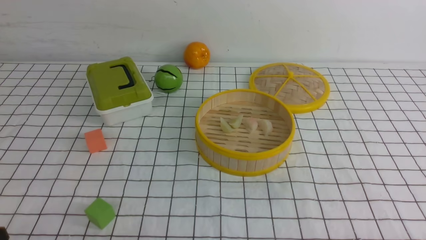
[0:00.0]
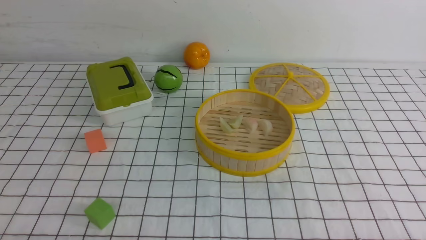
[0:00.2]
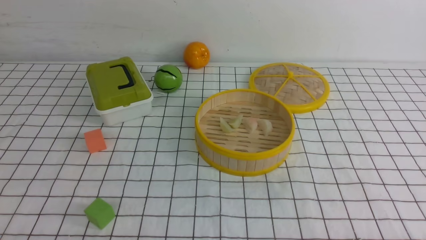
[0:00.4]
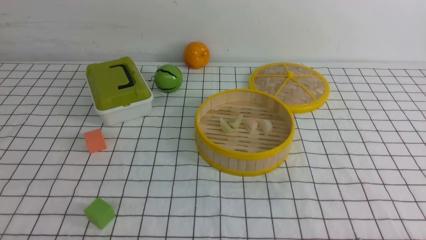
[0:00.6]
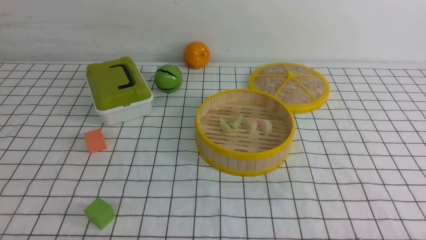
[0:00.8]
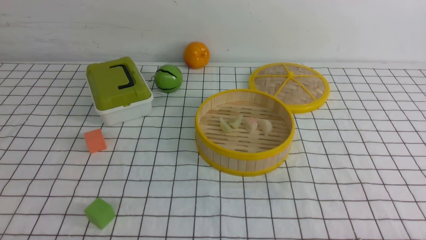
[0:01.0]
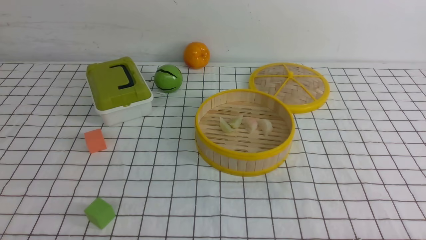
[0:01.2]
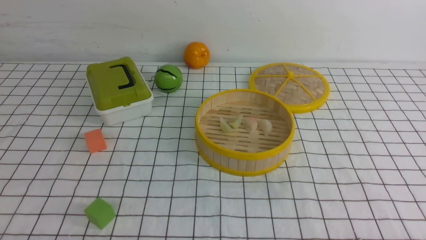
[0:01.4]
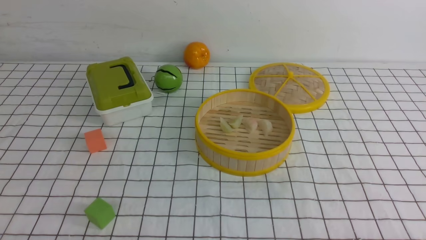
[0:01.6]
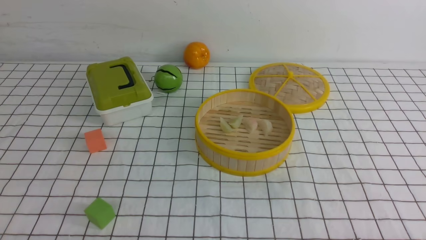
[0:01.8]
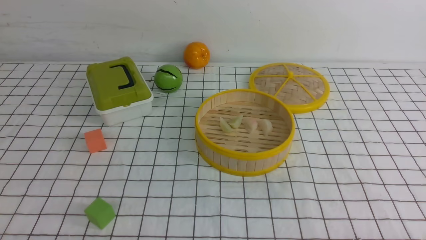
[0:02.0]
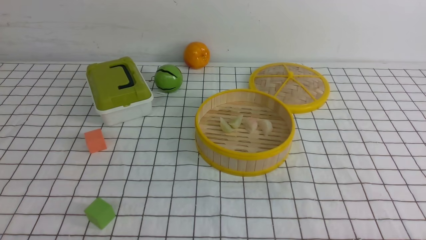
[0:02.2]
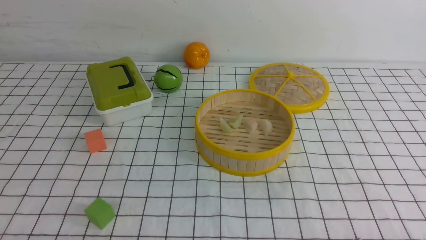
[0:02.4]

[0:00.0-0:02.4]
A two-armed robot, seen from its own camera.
Task of the whole recording: put the dumplings into the steamer on the table with the white tablecloth.
0:01.2 to 0:02.4: The two grippers keep their place.

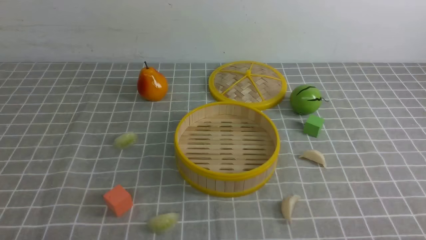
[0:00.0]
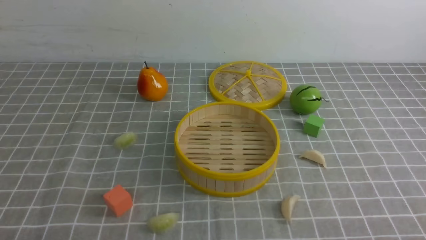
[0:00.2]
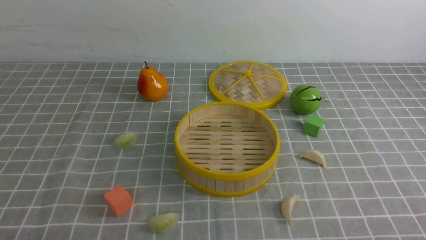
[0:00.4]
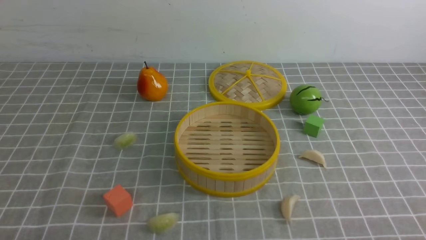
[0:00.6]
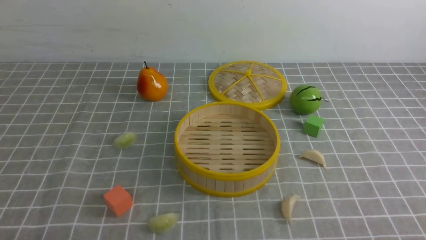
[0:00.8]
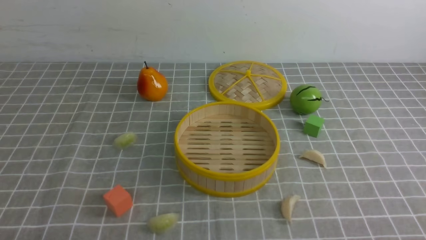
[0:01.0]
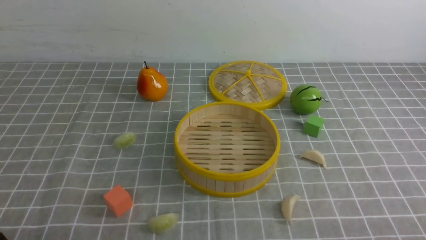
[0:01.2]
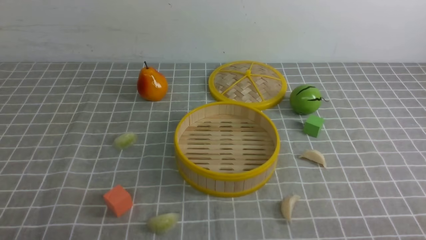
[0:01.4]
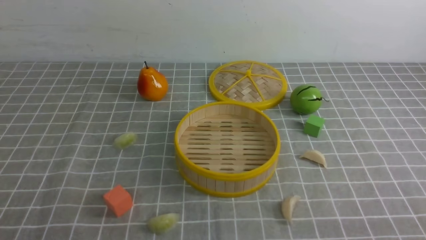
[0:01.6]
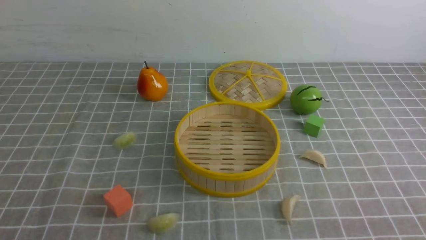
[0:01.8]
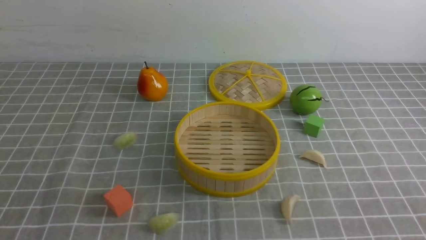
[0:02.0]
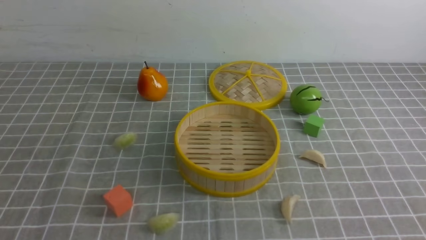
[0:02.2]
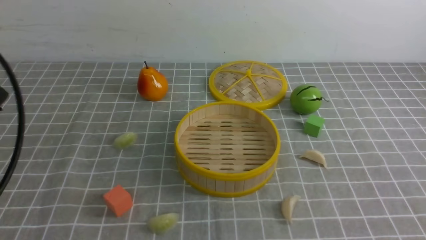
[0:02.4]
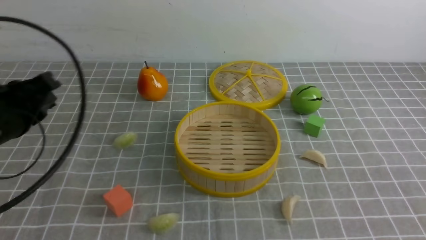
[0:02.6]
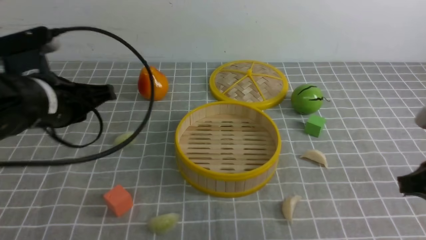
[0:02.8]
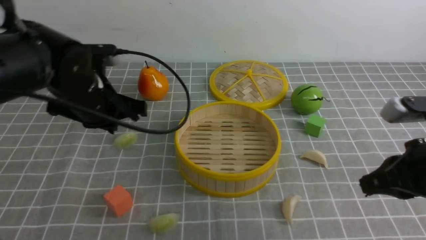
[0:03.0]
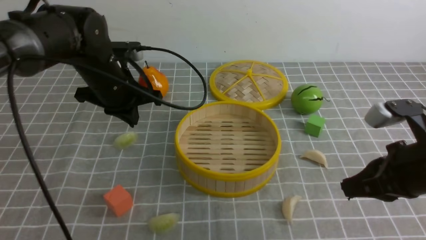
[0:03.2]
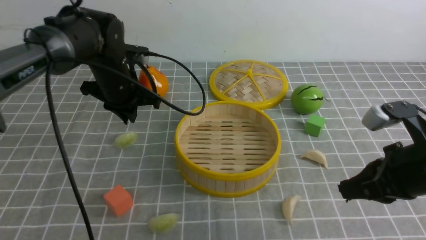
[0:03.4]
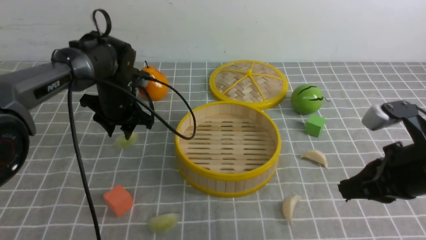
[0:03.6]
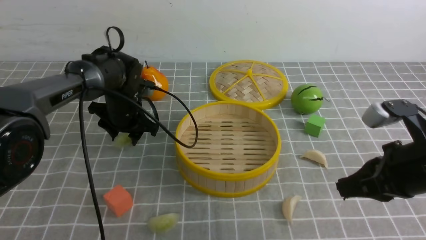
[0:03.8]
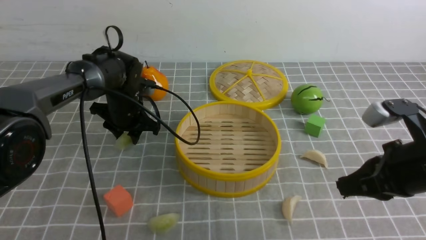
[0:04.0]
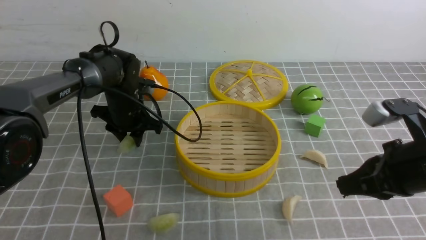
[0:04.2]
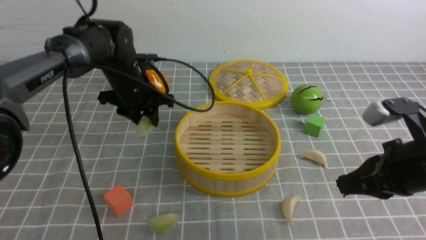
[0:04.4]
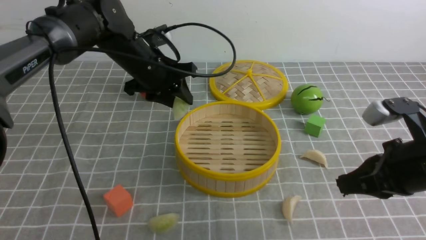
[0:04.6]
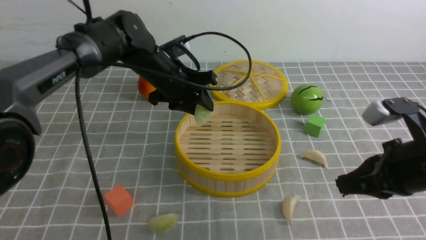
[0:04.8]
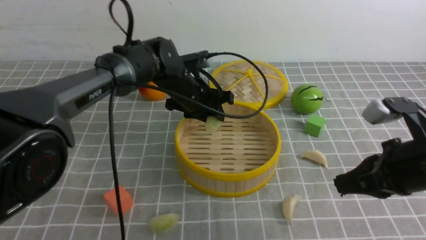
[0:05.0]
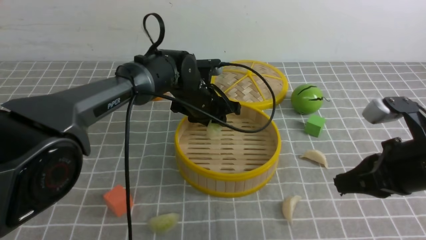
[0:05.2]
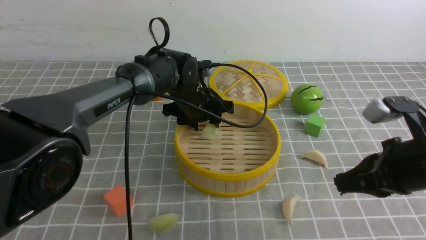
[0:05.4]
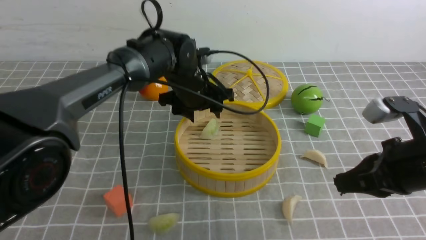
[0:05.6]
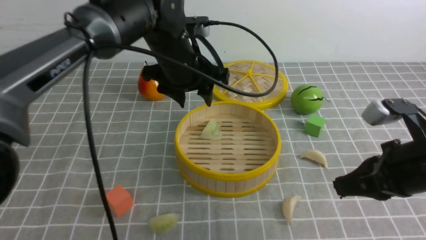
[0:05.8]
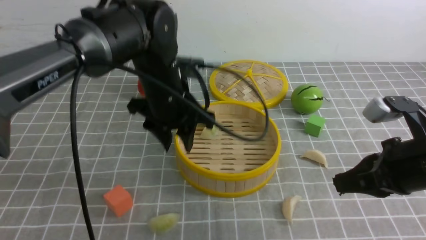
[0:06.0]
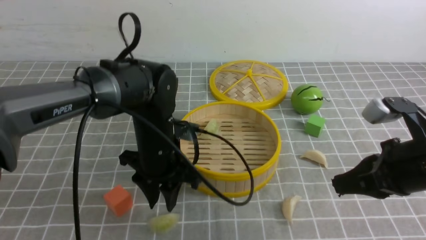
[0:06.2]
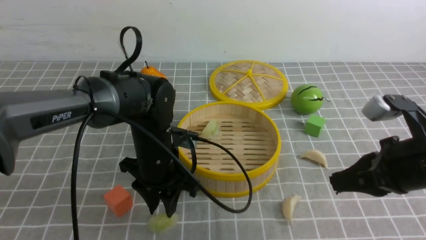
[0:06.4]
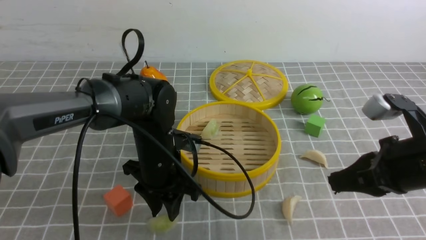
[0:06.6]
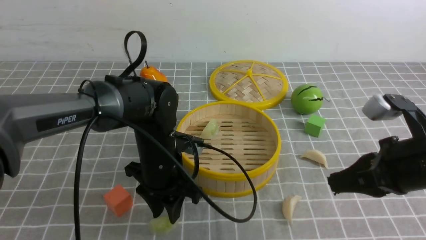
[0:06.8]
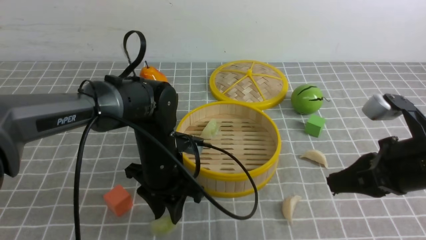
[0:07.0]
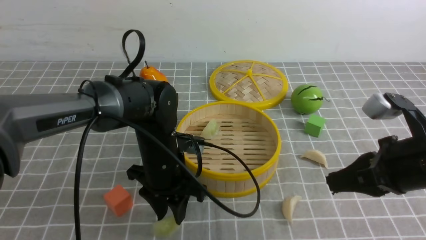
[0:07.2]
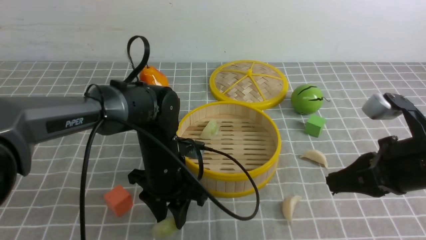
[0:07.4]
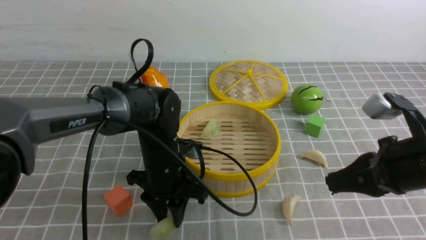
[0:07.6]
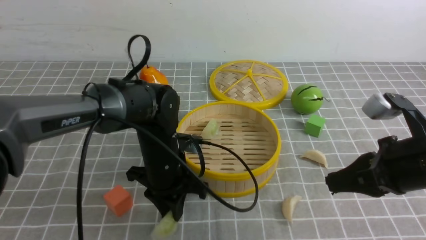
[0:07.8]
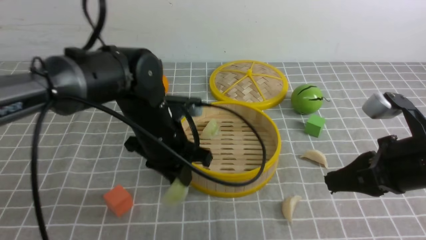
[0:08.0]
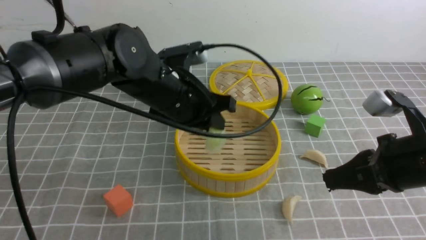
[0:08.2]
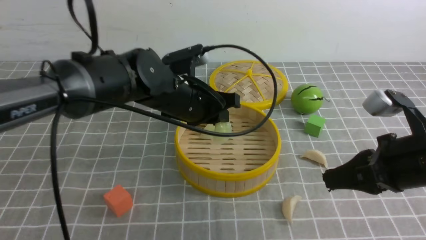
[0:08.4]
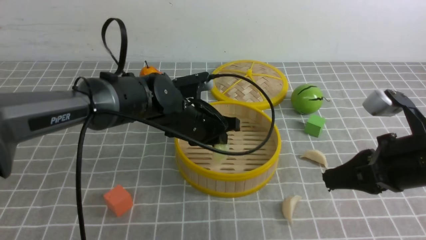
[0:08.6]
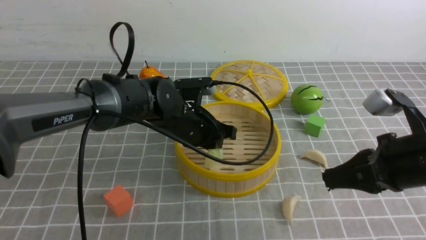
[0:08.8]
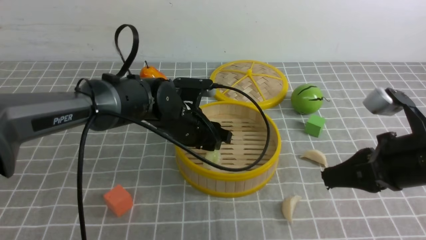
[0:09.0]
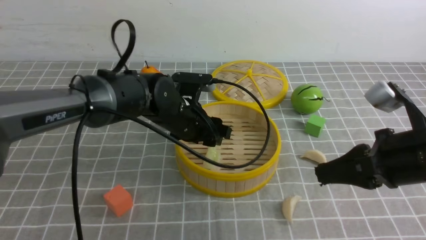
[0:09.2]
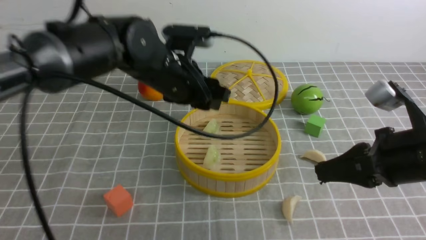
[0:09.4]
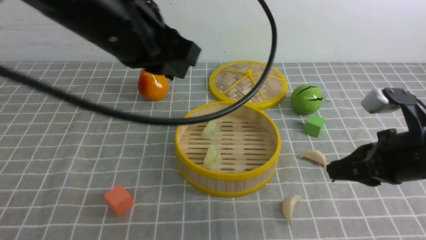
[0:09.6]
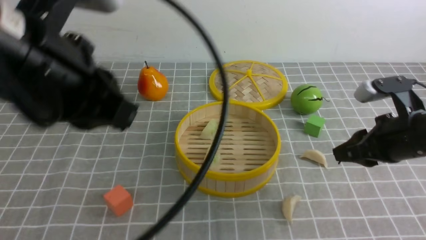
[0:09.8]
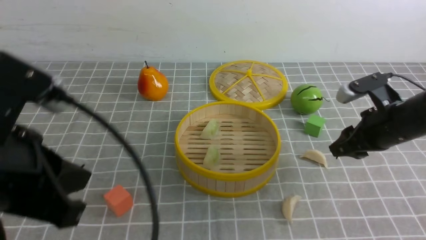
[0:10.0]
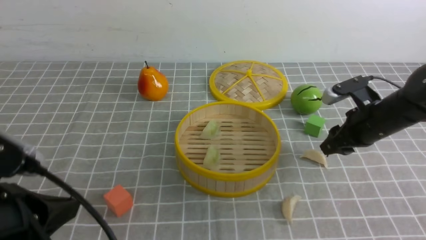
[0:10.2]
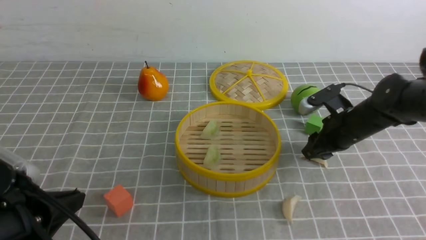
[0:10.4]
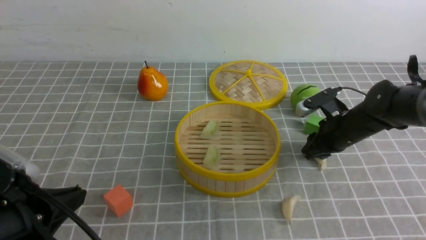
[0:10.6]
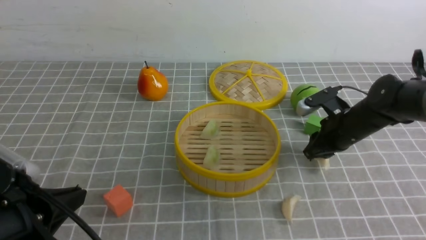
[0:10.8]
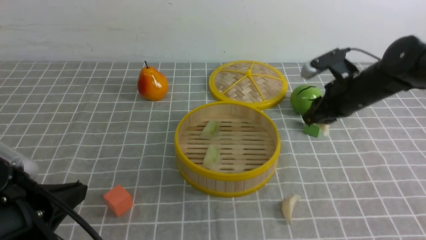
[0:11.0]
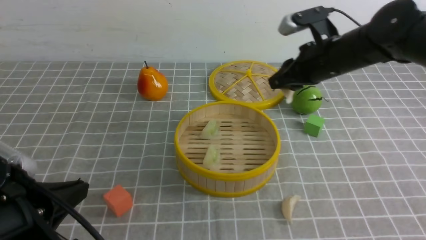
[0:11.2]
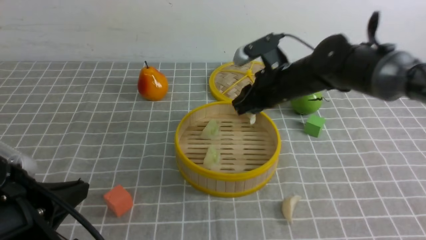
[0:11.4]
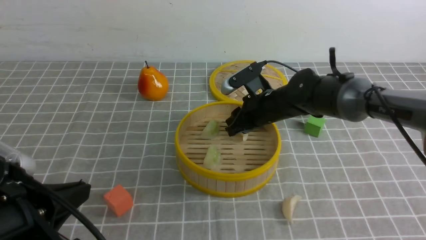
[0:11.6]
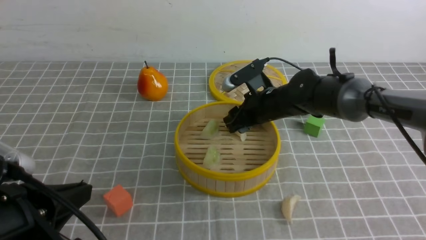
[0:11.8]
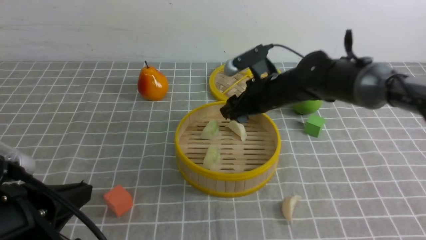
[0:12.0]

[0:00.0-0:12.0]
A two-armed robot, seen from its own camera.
Task of the whole recording: put the dumplings into the steamer on the table with the grey tablecloth.
Step, 0:00.0 to 0:04.2: use the left arm to grab a dumpling.
Step, 0:04.4 to 0:05.6: use the left arm to put the dumpling into the steamer.
Step, 0:05.8 to 0:07.8: use the left arm to grab a dumpling.
Step, 0:08.0 to 0:09.4: use the left arm to put the dumpling into the steamer.
Step, 0:09.6 to 0:10.8: use the right arm to grab a dumpling.
Step, 0:11.0 to 0:12.0: use the right arm to put the dumpling into the steamer.
0:01.6 to 0:03.0: The left gripper heads forward, covering approximately 30 cm, and closes. Meanwhile the right gripper travels forward by about 20 cm, and closes.
0:03.0 to 0:04.4: The left gripper heads forward and downward, covering some 10 cm, and opens up.
0:04.4 to 0:06.0: The left gripper moves backward and to the right, about 10 cm.
0:06.0 to 0:07.6: The left gripper moves downward, approximately 10 cm.
0:07.6 to 0:09.0: The left gripper moves some 5 cm.
0:09.0 to 0:10.4: The left gripper travels backward and to the left by about 30 cm, and closes; the right gripper heads forward and downward, covering some 20 cm, and opens its fingers.
0:10.4 to 0:12.0: The right gripper goes some 15 cm to the left and upward.

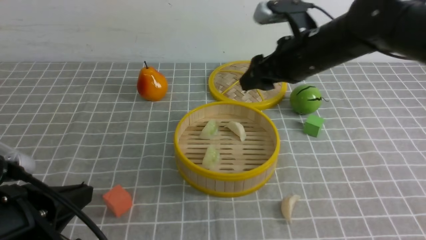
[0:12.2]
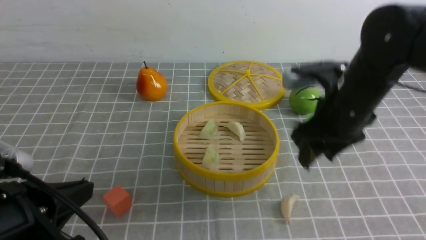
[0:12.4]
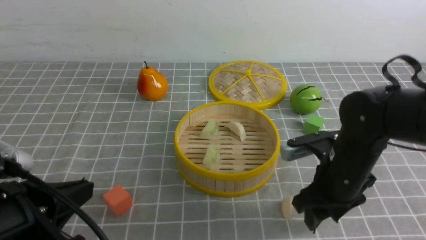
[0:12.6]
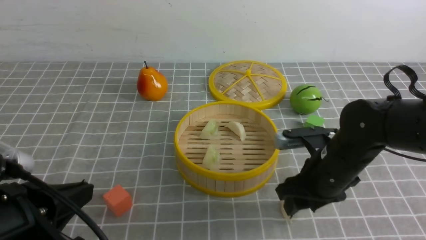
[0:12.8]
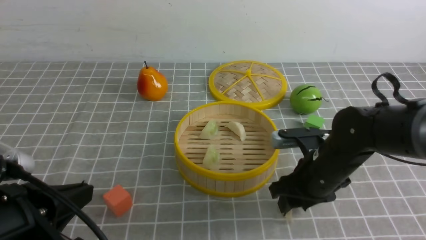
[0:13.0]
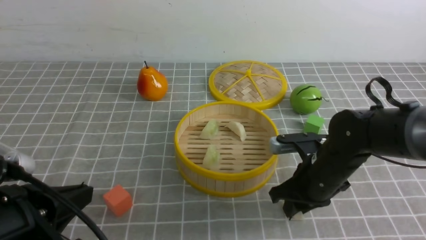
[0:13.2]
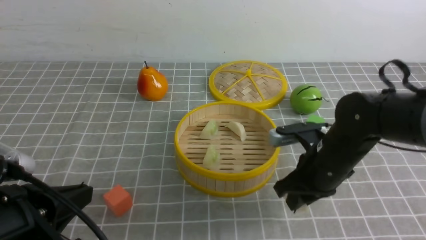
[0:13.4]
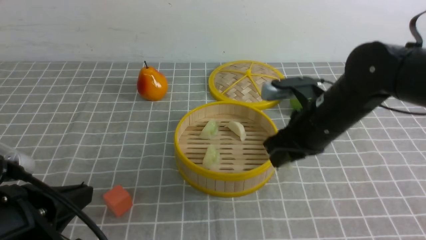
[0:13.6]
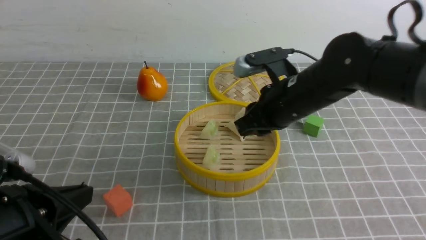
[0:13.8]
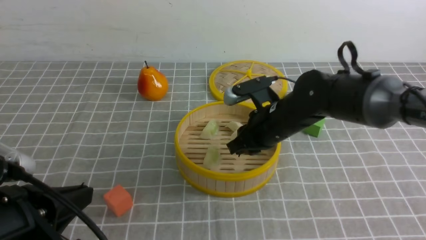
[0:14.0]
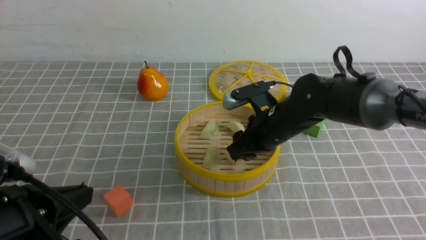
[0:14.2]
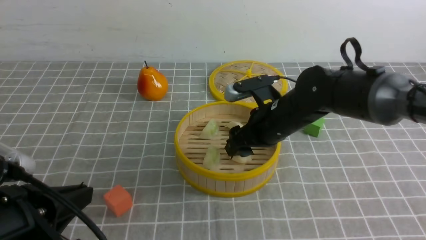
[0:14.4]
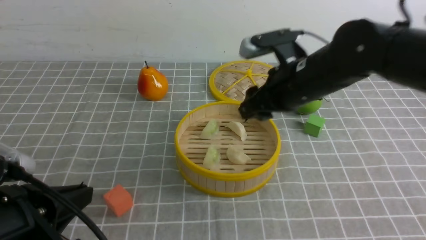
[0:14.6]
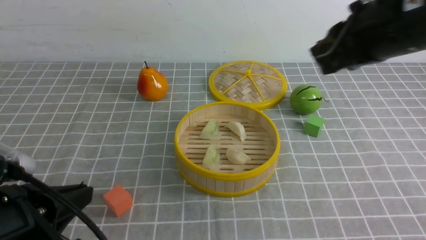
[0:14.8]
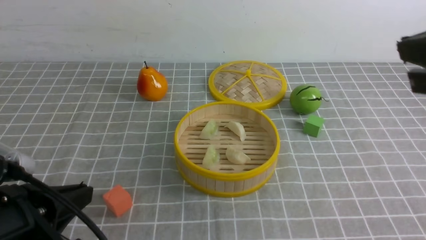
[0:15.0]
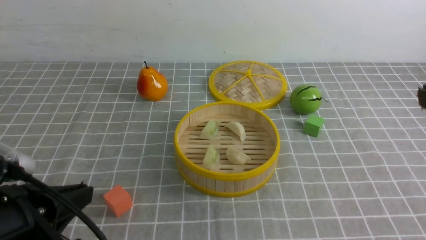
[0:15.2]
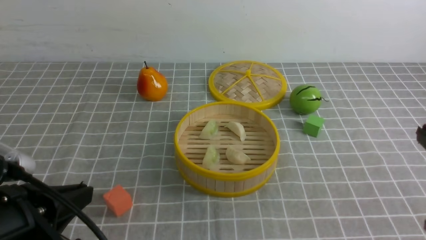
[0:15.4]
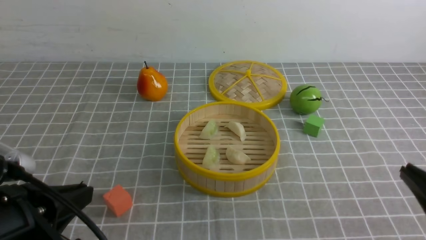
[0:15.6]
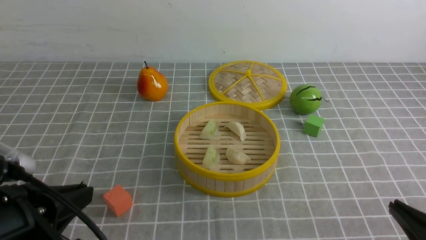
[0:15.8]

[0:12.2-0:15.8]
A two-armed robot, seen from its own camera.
Task of the whole recording: put the dumplings into the steamer on the table with the grey tablecloth.
Step, 0:12.2 to 0:13.2: use the right arm to grab a dumpling.
Step, 0:13.4 to 0:14.4: use the right arm to put the dumpling into the steamer.
0:12.2 to 0:14.0: The right gripper shifts about 5 cm downward, and closes its fingers.
0:14.0 to 0:15.8: The right gripper is displaced backward and to the right by approximately 35 cm, and closes up.
